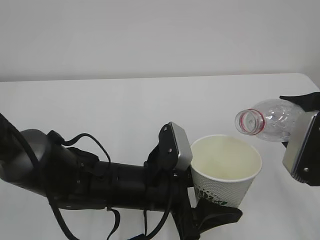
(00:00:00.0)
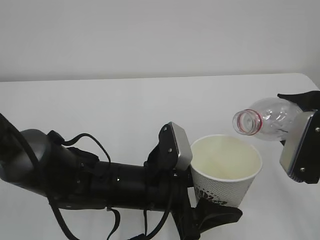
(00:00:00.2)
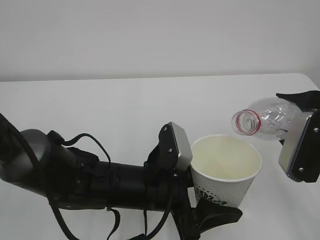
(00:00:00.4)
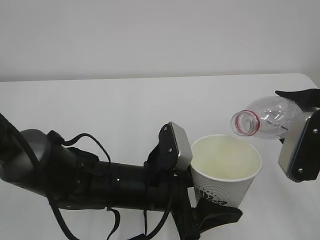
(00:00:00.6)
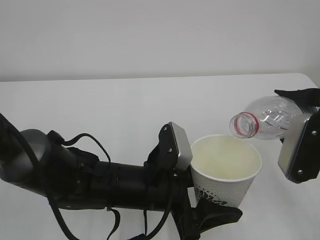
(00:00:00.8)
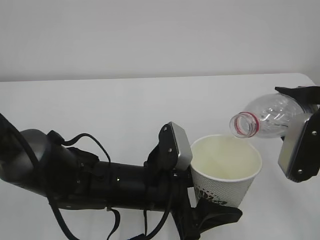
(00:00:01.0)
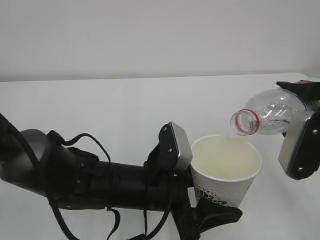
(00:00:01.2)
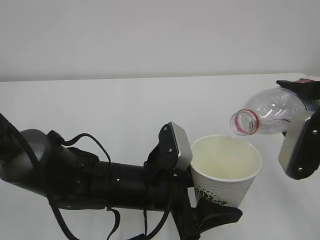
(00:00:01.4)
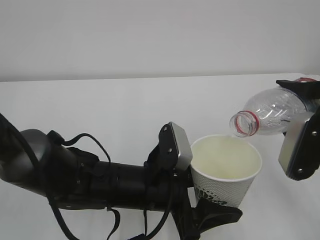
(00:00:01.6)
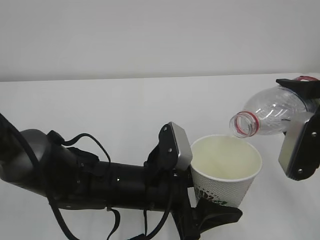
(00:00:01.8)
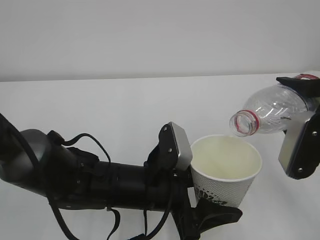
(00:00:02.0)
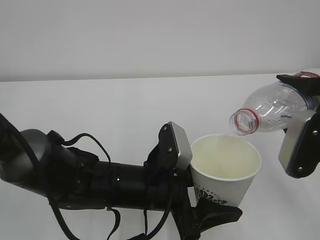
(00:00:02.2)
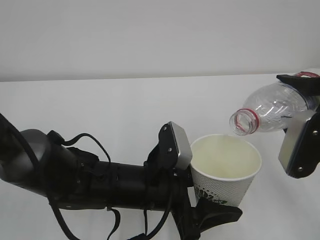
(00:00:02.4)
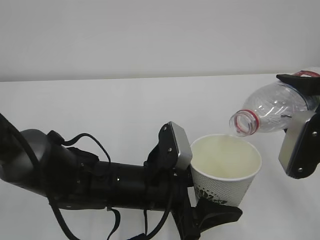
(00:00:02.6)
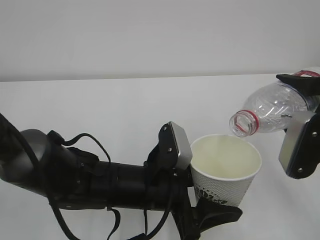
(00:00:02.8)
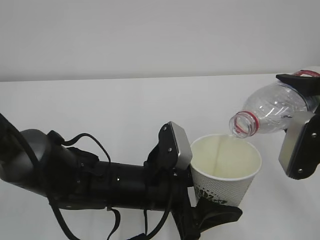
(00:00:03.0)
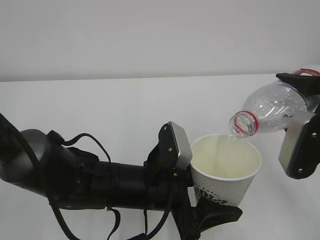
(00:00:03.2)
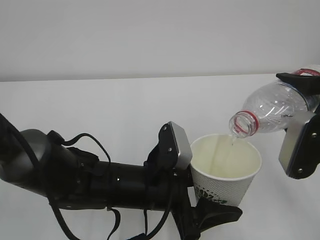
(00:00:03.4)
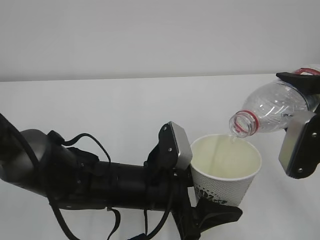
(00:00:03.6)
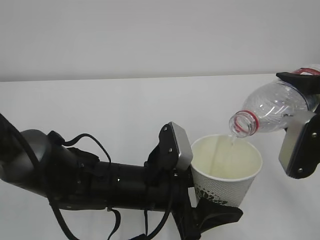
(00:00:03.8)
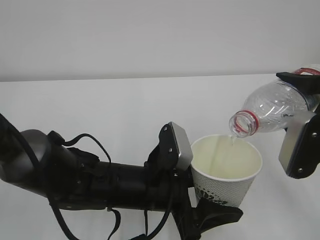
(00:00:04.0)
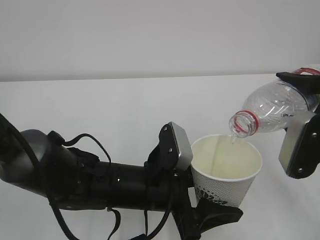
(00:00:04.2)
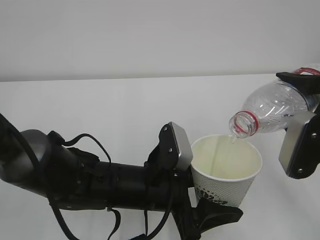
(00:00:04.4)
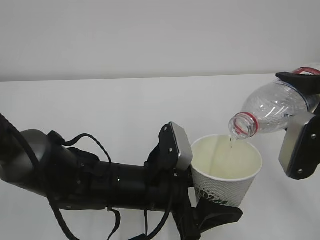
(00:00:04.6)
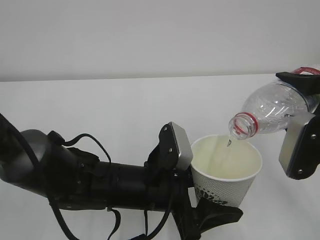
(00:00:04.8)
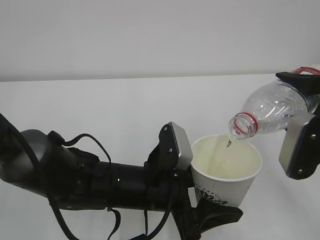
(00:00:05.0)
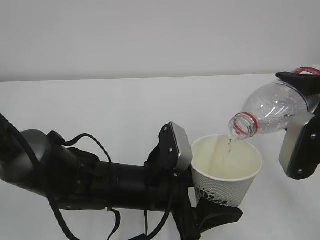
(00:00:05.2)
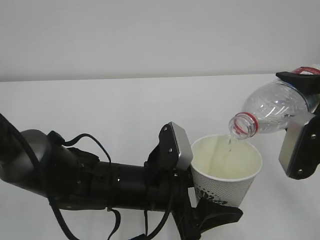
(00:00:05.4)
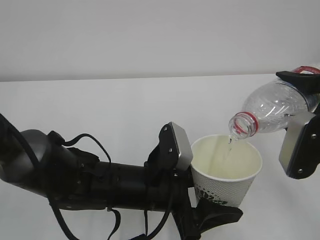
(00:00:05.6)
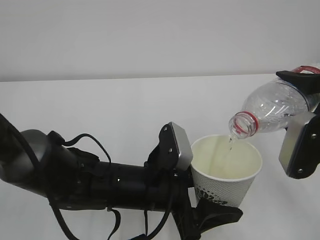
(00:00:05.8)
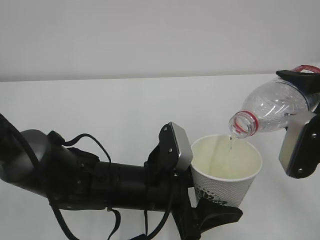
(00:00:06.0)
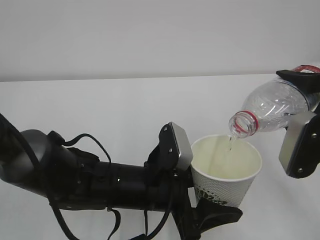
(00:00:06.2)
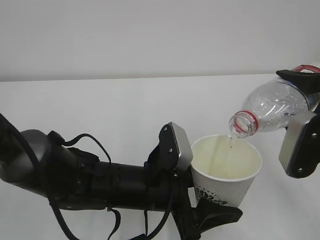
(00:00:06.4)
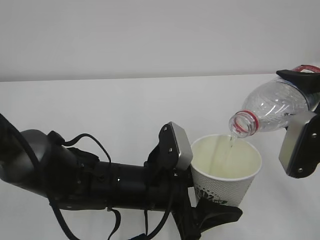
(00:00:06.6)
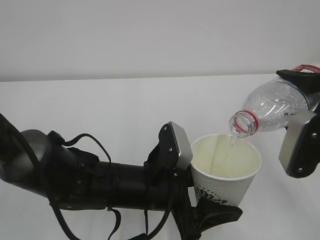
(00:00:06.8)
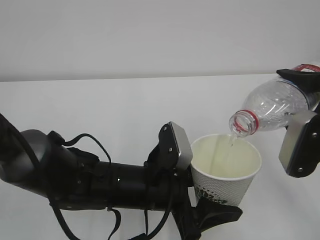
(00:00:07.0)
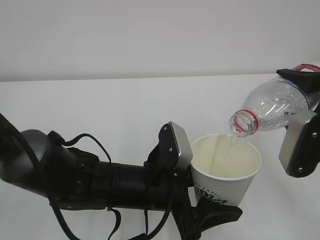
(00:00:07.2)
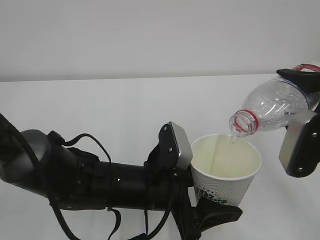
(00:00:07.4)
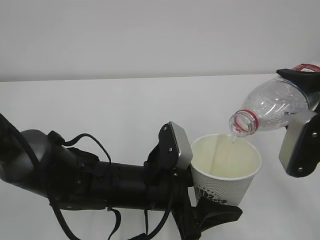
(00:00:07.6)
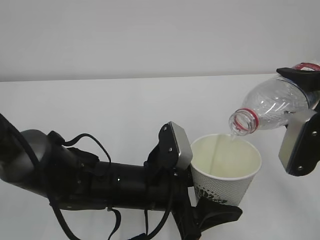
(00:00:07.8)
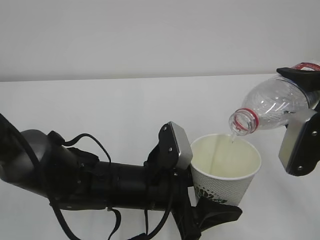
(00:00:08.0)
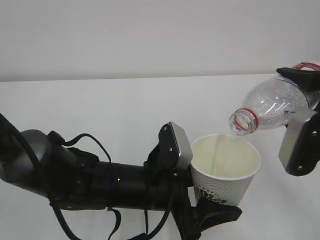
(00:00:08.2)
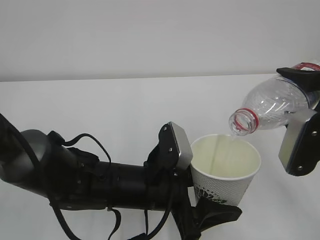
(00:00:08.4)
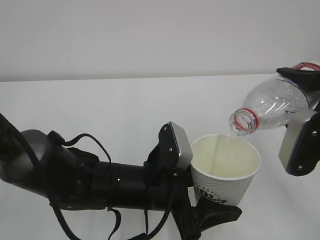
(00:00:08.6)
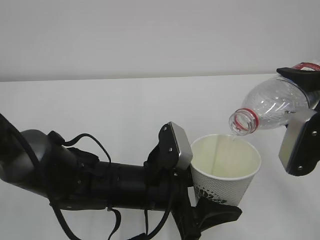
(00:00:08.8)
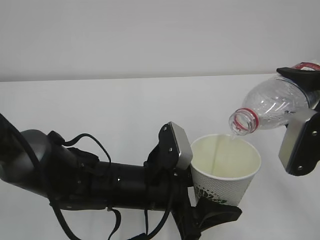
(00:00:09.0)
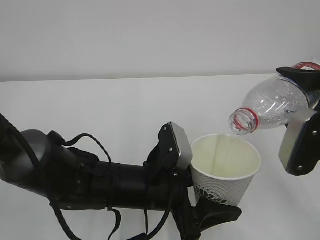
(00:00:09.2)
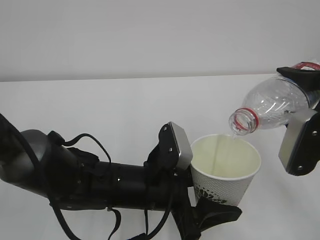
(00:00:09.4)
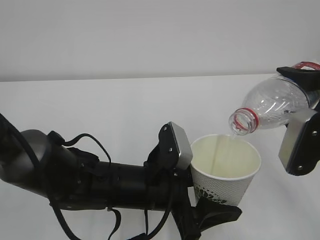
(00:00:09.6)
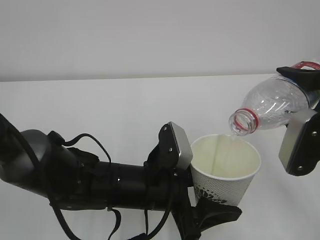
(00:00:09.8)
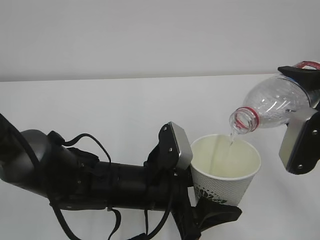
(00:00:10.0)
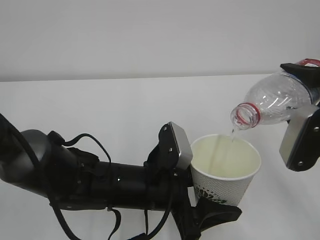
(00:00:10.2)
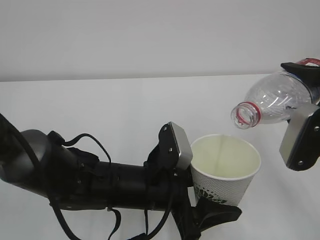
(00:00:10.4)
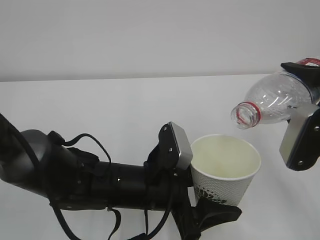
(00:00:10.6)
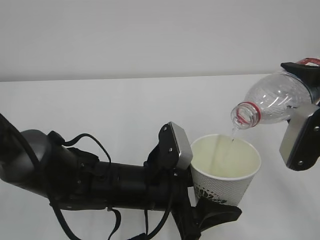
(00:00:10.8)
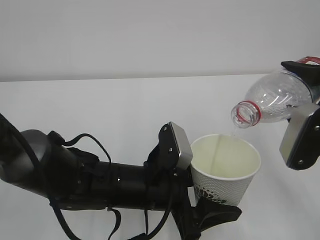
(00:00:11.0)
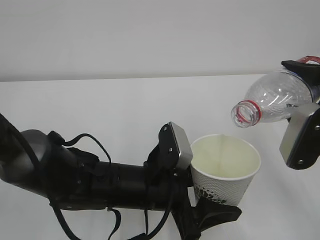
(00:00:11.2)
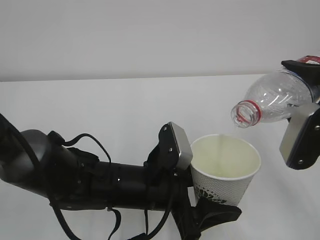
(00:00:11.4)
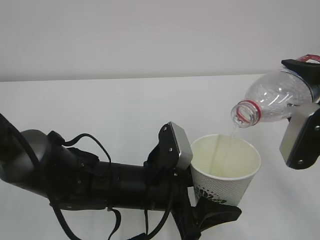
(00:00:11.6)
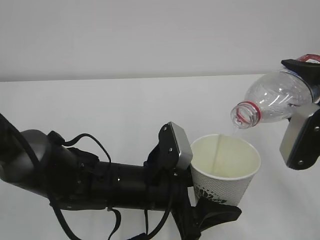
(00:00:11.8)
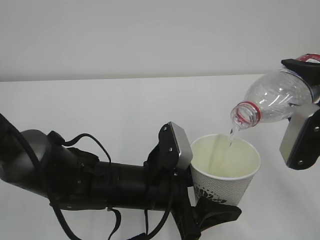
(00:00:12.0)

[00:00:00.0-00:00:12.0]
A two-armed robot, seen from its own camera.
00:00:00.0 to 00:00:01.6: The grippers make only small movements.
00:00:01.6 to 00:00:03.0: Both grippers stay about where they are.
00:00:03.0 to 00:00:10.4: Both grippers stay about where they are.
00:00:10.4 to 00:00:12.0: Both grippers stay put.

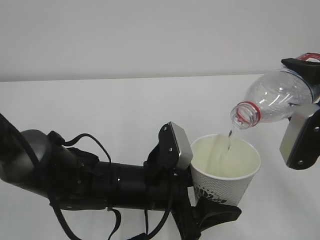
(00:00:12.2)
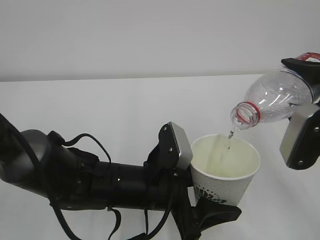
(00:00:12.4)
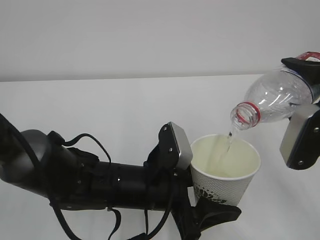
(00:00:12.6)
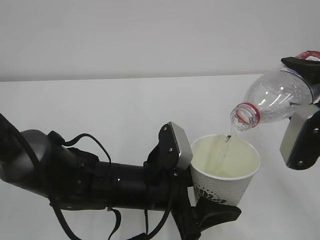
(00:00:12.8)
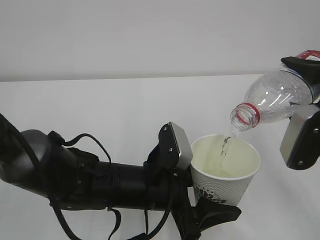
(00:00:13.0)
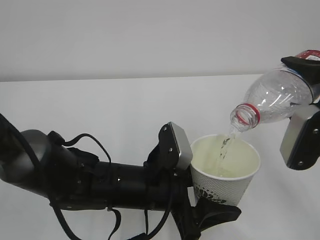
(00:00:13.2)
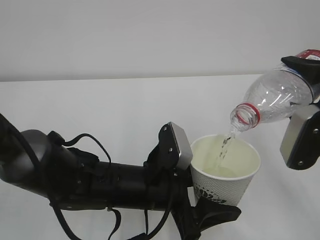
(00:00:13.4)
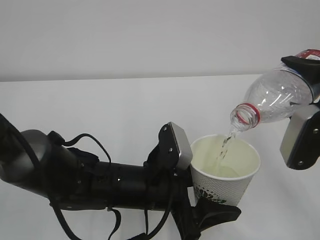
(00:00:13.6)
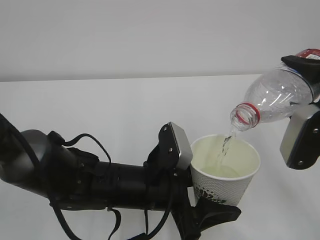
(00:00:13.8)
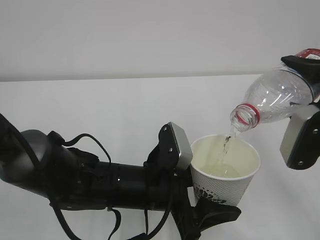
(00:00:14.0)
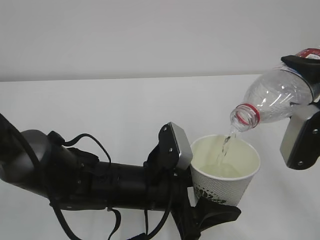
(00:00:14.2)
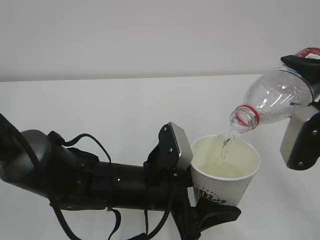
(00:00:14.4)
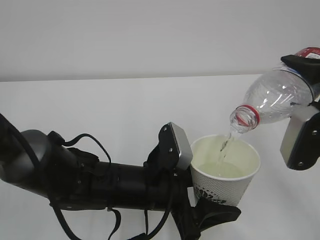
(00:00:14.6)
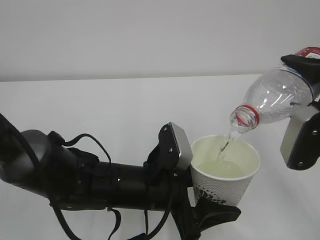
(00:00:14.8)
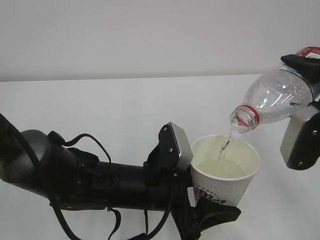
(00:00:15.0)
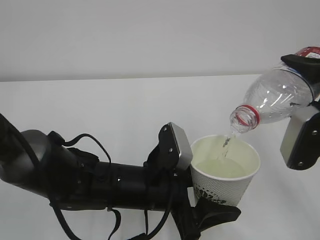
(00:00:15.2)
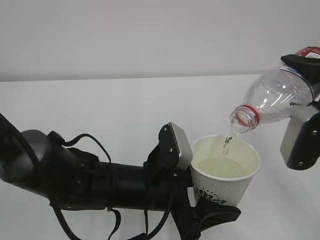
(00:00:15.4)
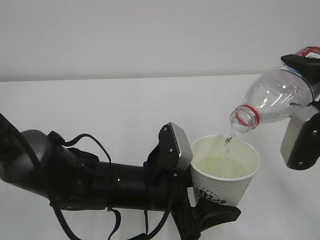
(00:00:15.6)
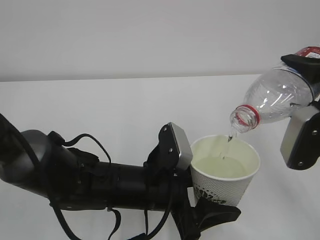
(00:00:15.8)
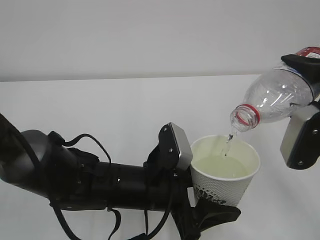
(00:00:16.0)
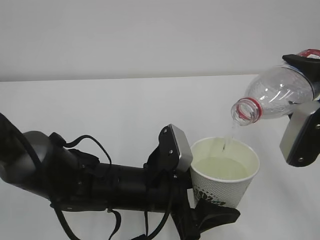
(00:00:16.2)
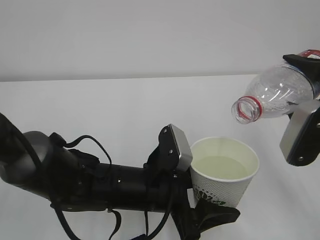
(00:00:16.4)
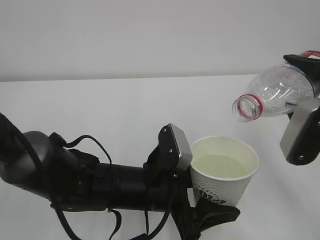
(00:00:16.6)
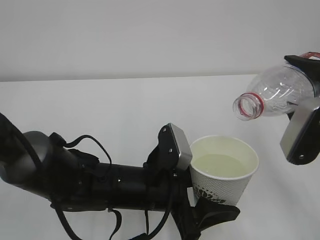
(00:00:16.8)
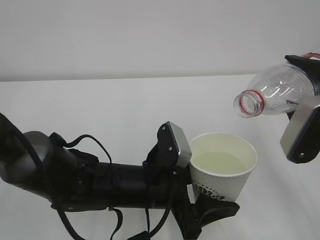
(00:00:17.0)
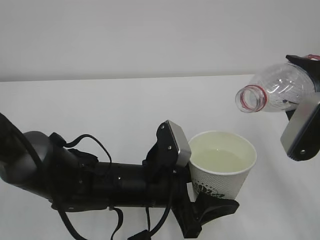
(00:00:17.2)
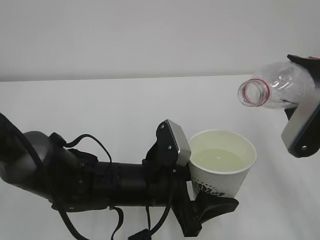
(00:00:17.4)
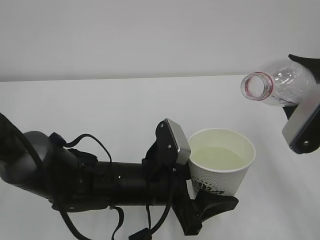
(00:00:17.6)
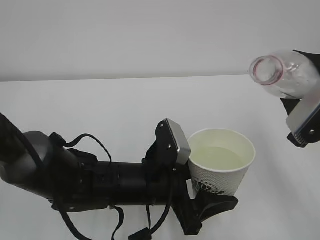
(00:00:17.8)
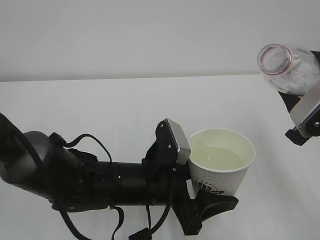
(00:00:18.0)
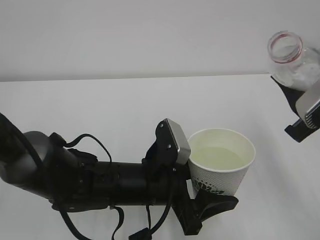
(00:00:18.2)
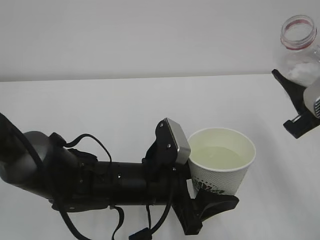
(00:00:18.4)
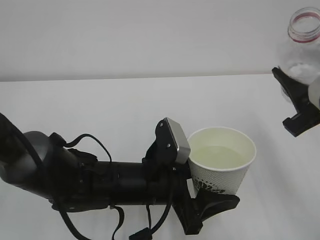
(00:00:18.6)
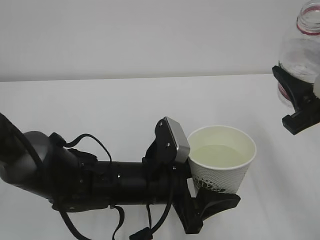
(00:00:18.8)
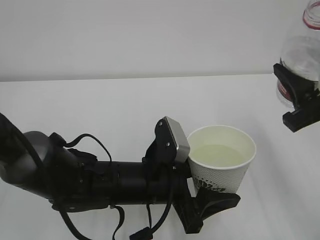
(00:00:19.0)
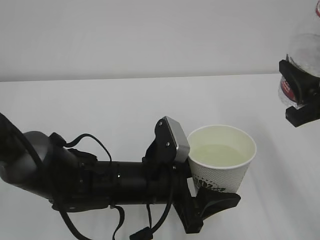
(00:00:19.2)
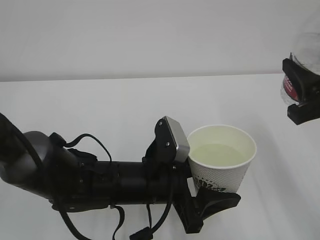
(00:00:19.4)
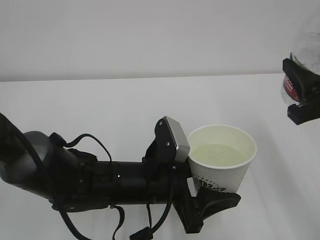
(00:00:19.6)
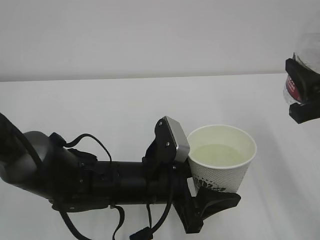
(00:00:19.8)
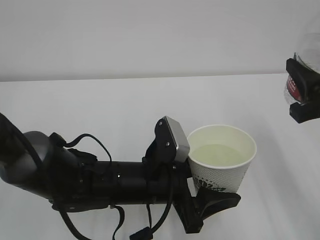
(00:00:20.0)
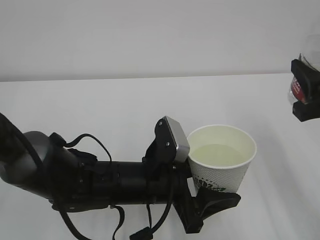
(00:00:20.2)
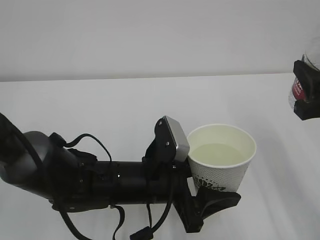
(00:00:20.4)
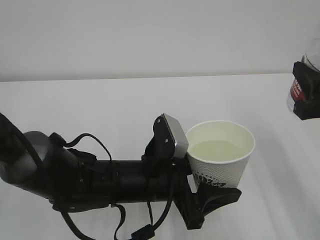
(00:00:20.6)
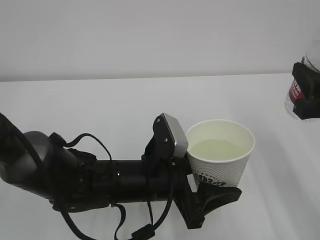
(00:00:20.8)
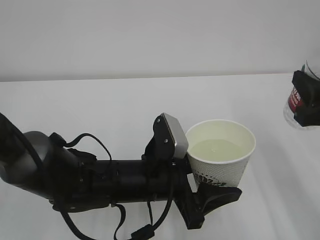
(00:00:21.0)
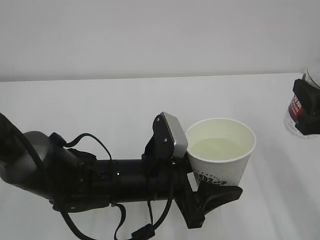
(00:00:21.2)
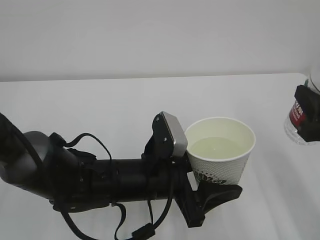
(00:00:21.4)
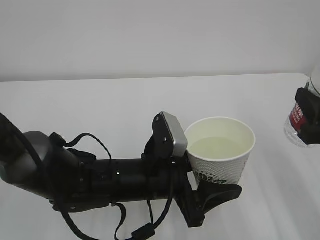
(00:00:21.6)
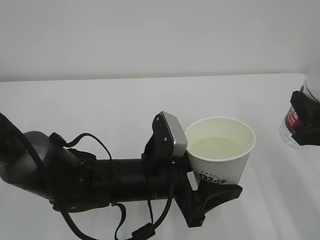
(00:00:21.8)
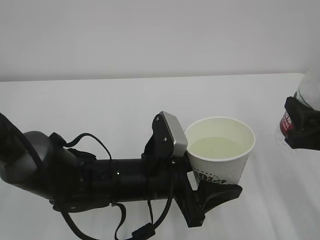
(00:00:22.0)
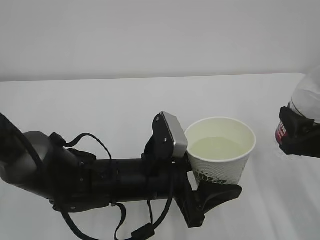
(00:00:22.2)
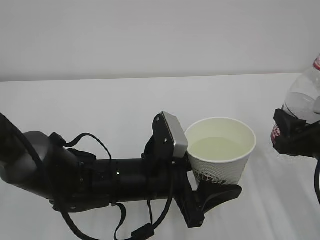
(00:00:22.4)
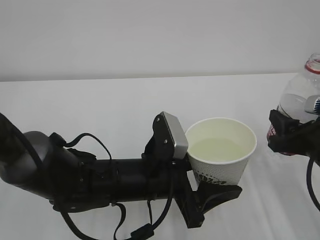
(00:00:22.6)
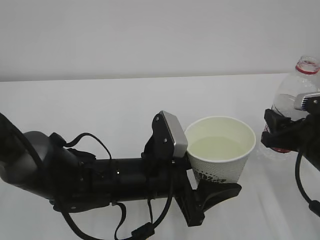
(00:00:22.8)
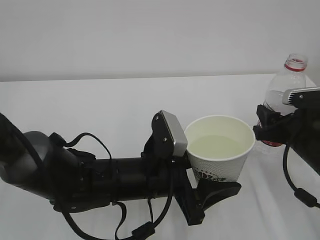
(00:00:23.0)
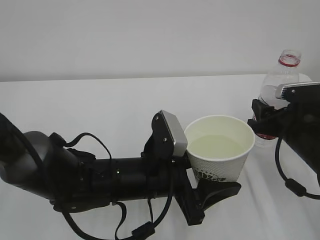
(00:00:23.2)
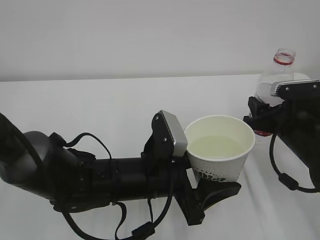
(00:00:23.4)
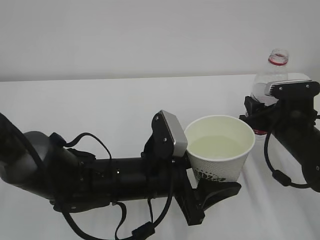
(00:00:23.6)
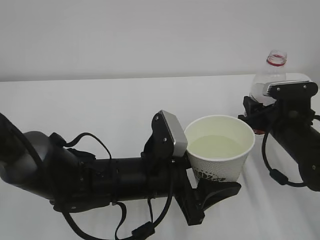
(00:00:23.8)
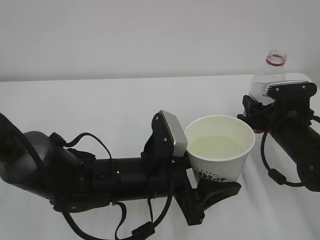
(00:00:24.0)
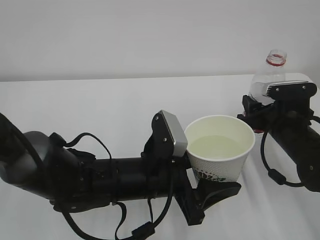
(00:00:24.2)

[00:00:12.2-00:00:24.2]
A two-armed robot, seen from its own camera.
00:00:12.2 to 00:00:13.8: Both grippers stay put.
00:00:13.8 to 00:00:15.2: Both grippers stay about where they are.
00:00:15.2 to 00:00:16.6: The grippers move only a little.
00:00:19.8 to 00:00:21.2: There are only small adjustments of the grippers.
00:00:21.2 to 00:00:22.6: The right gripper goes approximately 5 cm downward.
00:00:22.6 to 00:00:24.2: The right gripper moves forward, roughly 10 cm.
